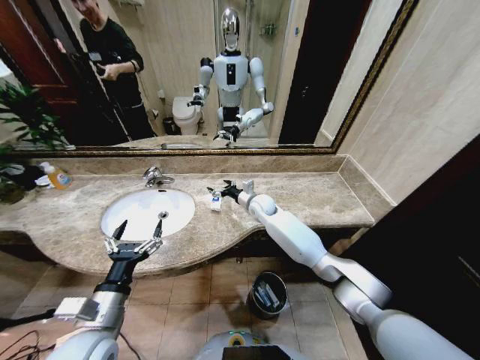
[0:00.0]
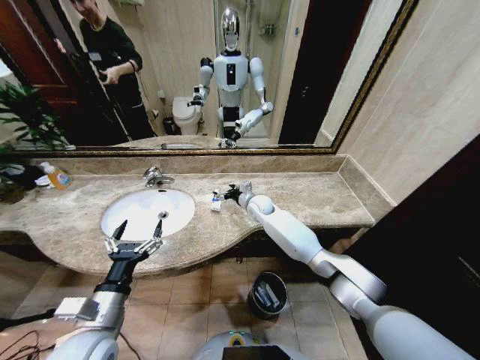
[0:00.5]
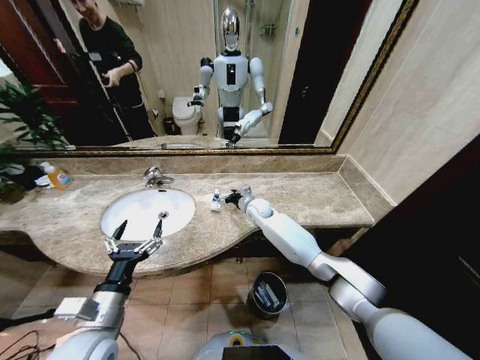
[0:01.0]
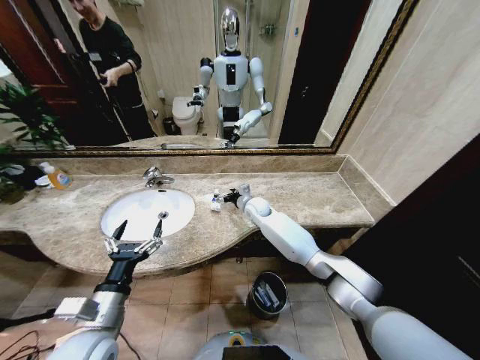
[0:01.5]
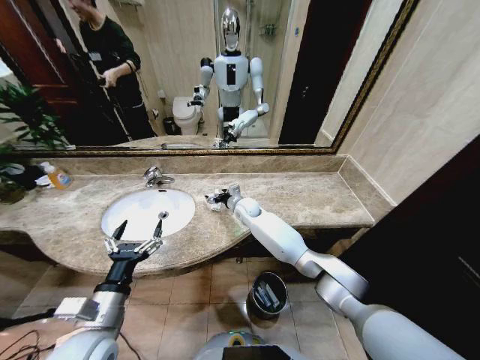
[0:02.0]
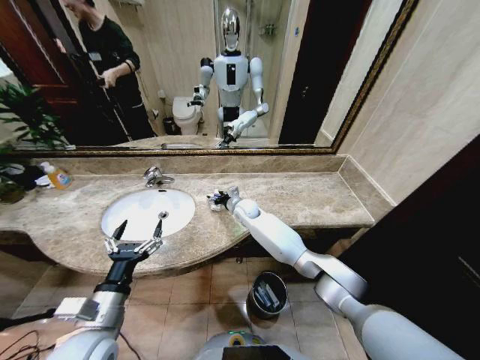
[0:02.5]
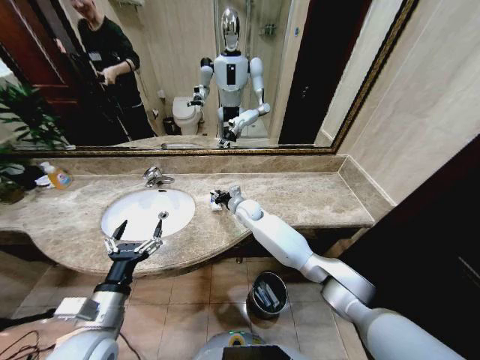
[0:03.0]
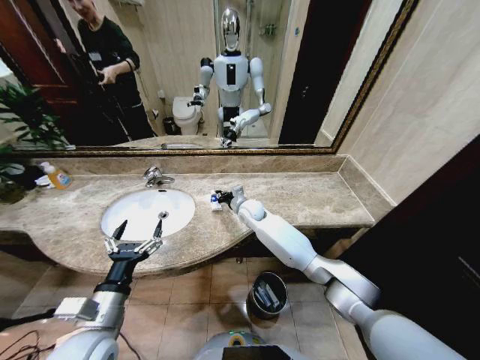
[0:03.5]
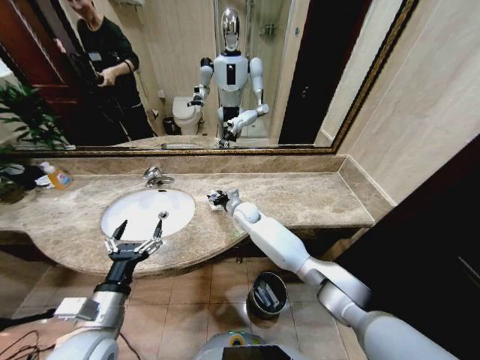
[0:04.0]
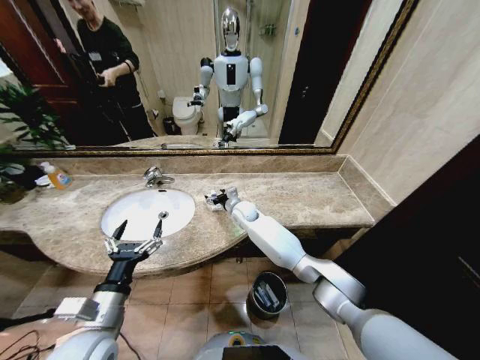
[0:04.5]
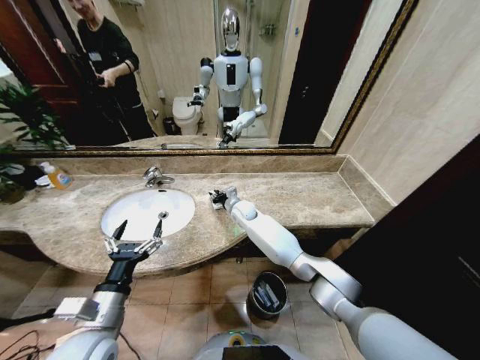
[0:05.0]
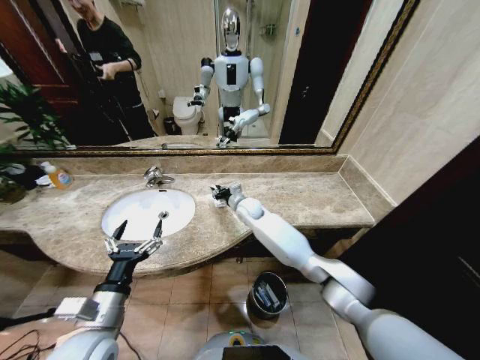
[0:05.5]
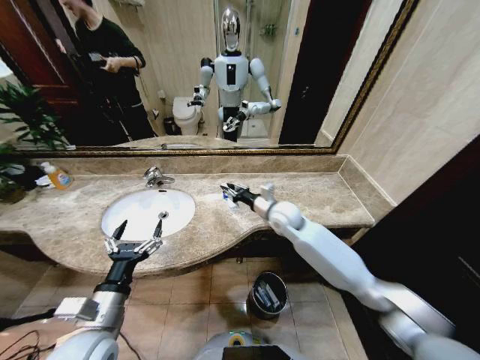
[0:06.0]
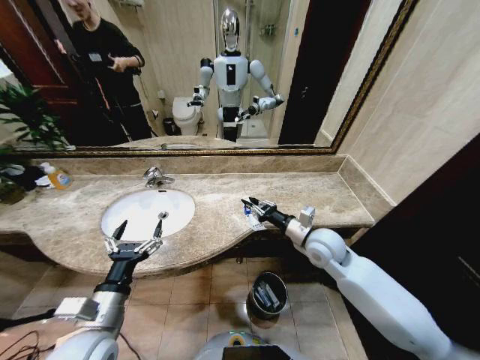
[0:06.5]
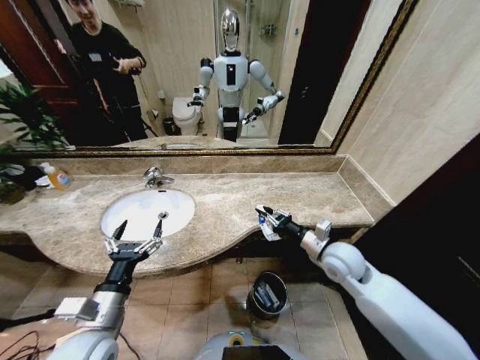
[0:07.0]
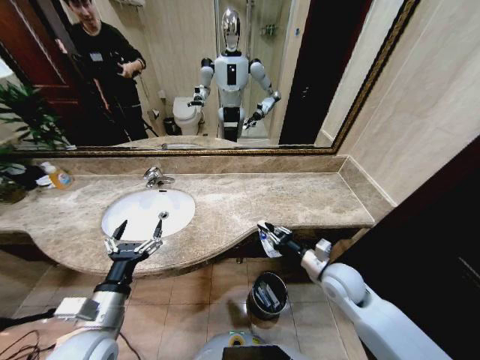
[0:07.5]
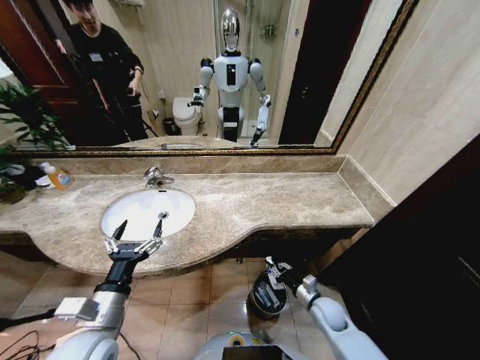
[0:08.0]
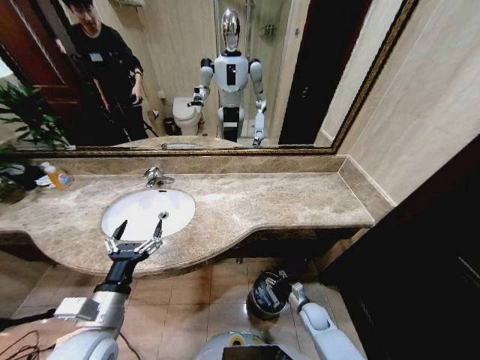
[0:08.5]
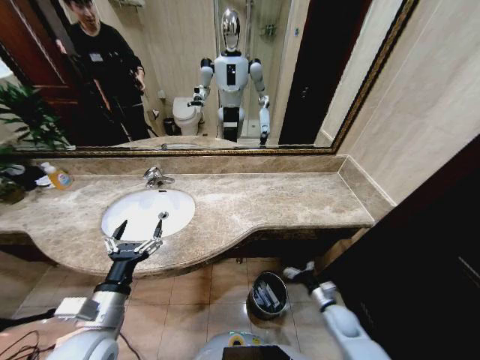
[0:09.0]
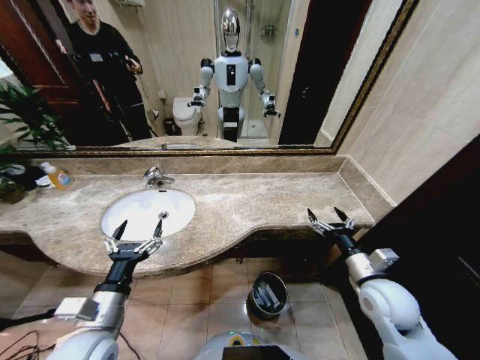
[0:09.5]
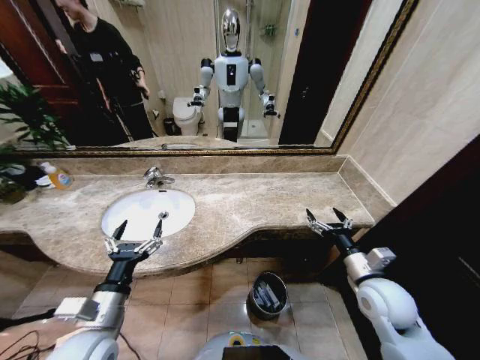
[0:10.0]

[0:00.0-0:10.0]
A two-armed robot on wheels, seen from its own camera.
Task of the whole recording: Pick up the trash from the sink and place it in the trash bin.
0:00.0 to 0:02.0: The right gripper shifts roughly 5 cm to the left.
0:02.0 to 0:04.0: The right gripper closes its fingers.
0:04.0 to 0:06.0: The right gripper goes some 15 cm to the right, upward and backward, and closes its fingers.
0:06.0 to 0:08.0: The right gripper travels downward, backward and to the right by roughly 35 cm.
0:08.0 to 0:10.0: The right gripper travels upward by roughly 25 cm, and opens its fingers.
